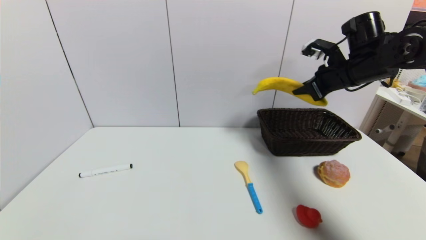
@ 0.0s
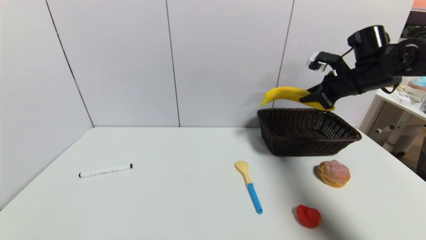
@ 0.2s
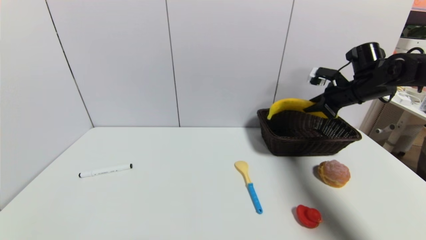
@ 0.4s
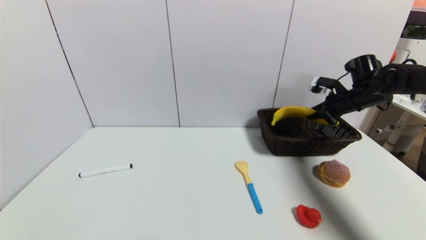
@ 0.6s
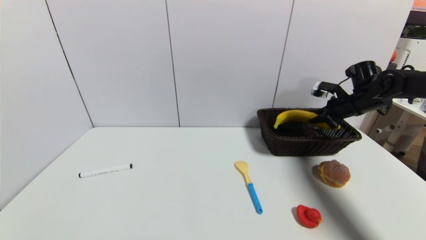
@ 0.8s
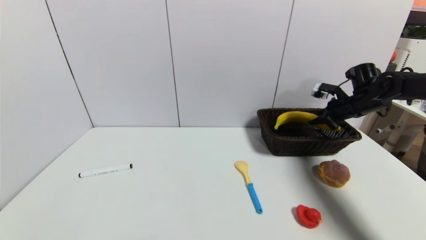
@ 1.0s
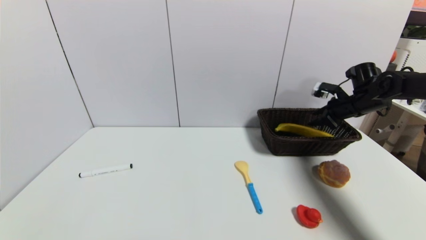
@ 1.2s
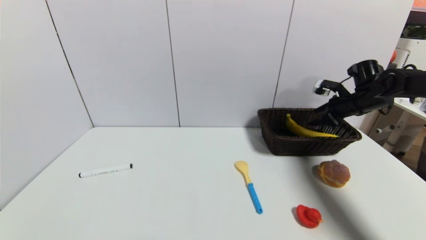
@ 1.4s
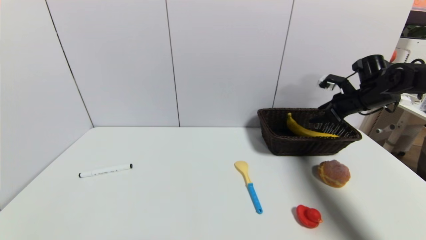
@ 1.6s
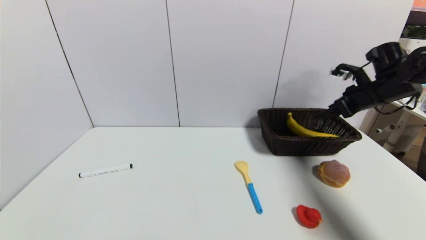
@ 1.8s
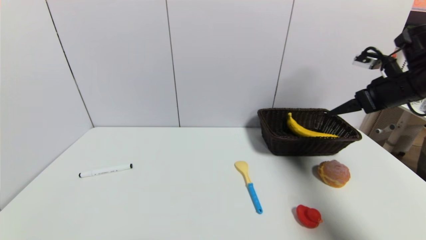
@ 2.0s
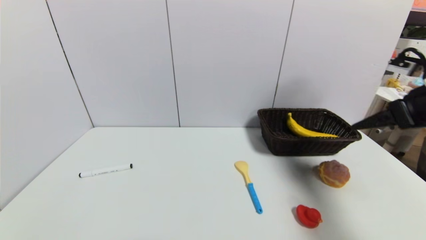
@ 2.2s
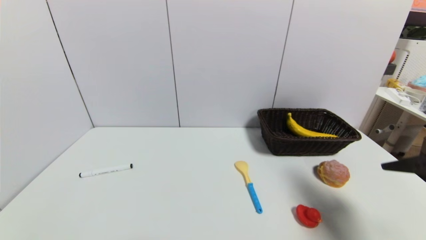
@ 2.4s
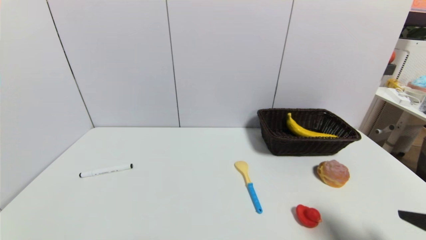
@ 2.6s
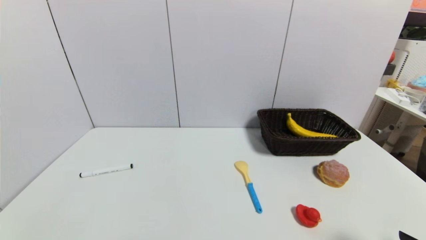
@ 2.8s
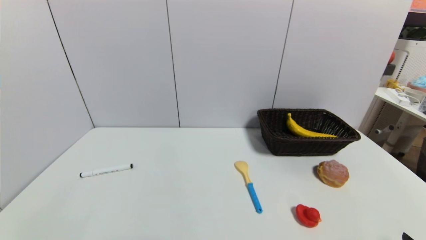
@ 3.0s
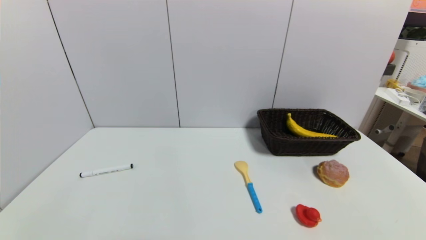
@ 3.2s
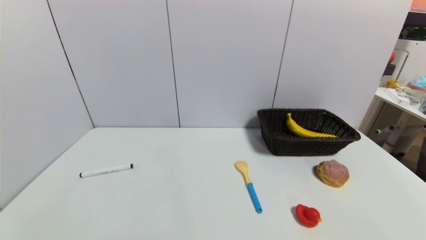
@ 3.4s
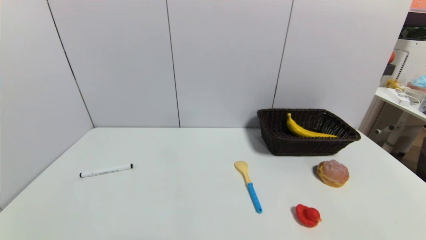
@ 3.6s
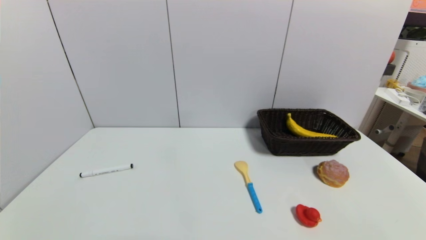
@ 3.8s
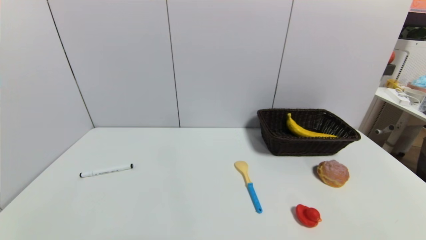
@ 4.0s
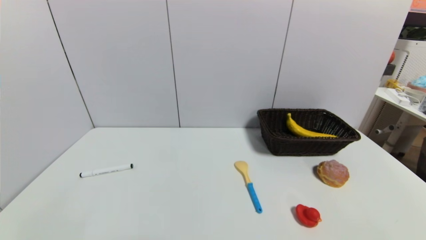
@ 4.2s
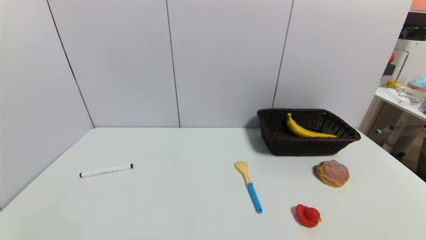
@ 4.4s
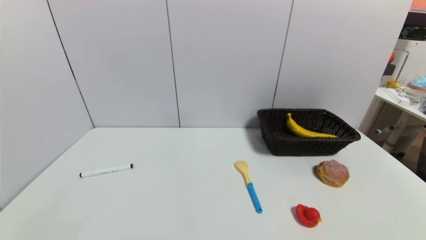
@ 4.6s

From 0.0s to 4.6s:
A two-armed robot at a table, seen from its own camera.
Task of the whole recording: use a gripper to pick the target object and place on the brown basket.
From 0.0s to 1.6s: The right gripper goes roughly 10 cm to the right and downward, and opens its fingers.
From 1.6s to 3.0s: The right gripper moves backward, approximately 40 cm.

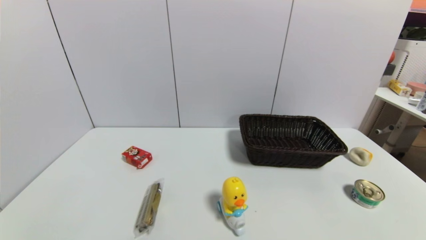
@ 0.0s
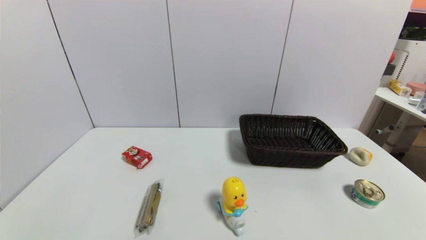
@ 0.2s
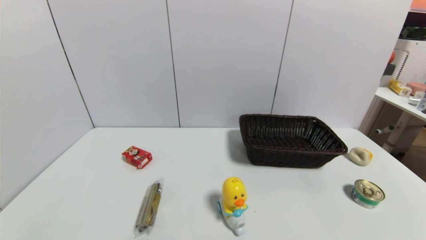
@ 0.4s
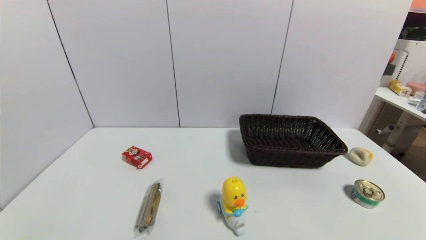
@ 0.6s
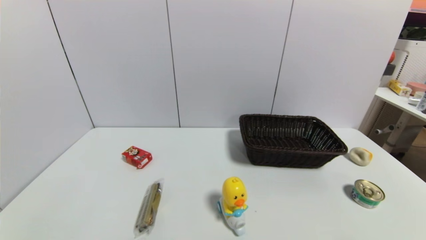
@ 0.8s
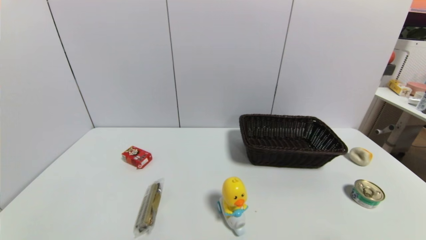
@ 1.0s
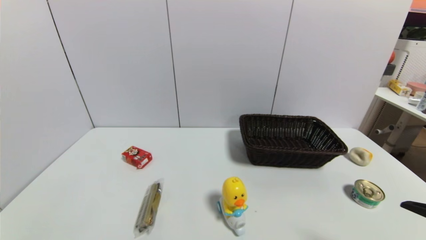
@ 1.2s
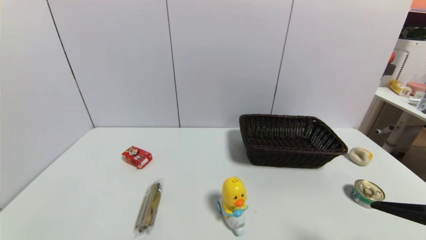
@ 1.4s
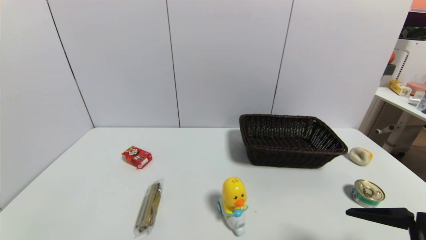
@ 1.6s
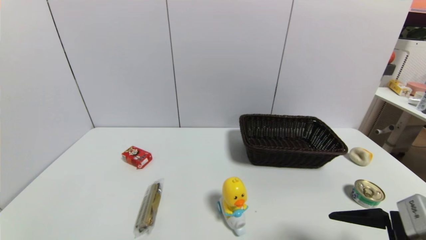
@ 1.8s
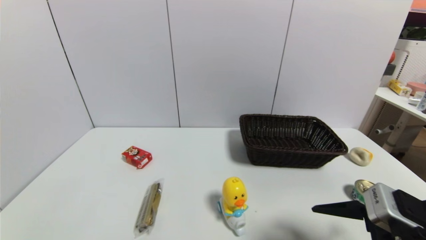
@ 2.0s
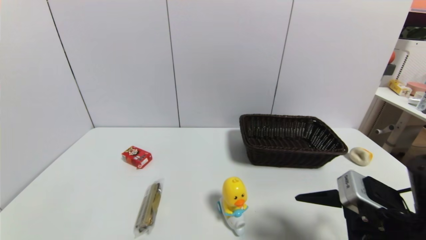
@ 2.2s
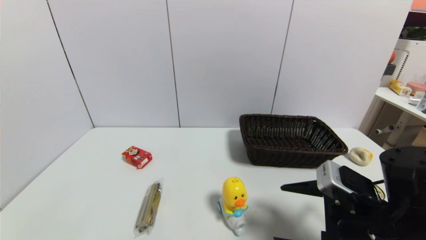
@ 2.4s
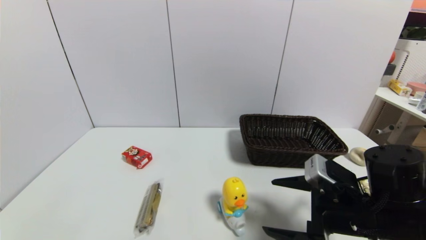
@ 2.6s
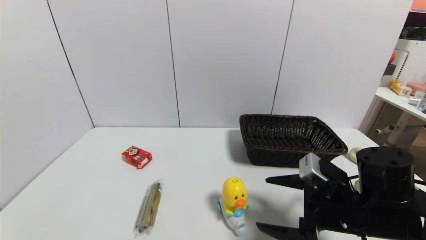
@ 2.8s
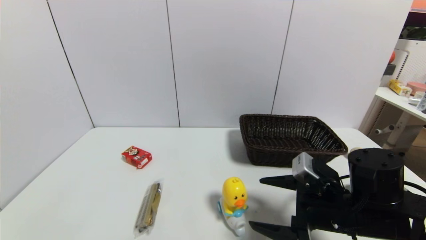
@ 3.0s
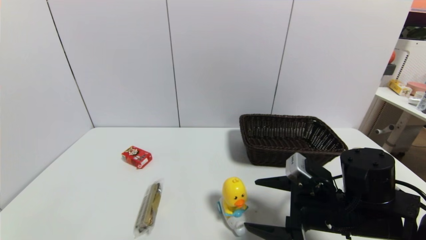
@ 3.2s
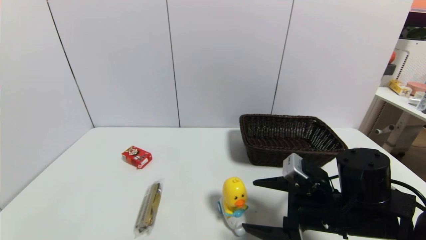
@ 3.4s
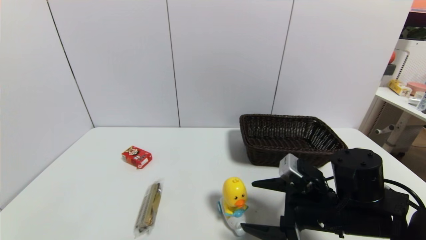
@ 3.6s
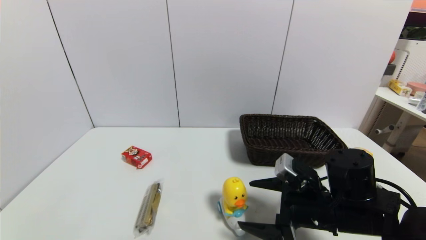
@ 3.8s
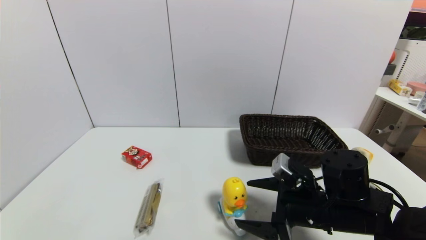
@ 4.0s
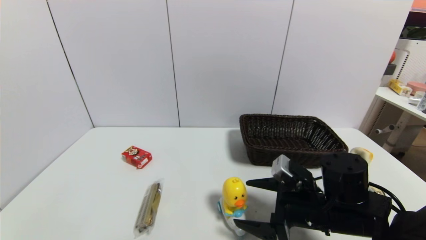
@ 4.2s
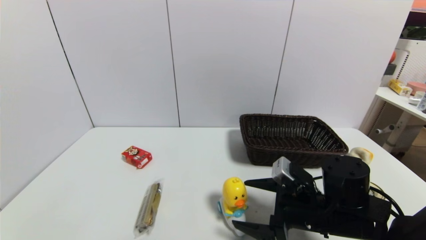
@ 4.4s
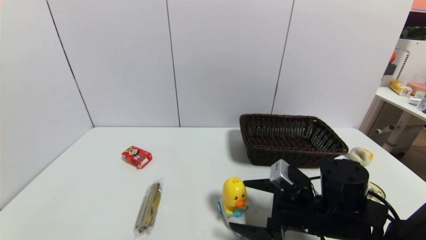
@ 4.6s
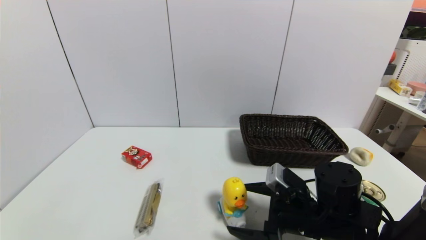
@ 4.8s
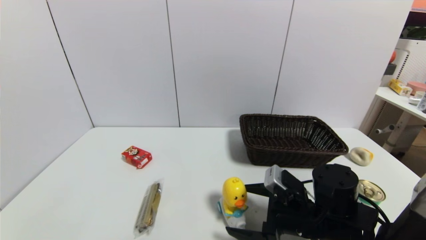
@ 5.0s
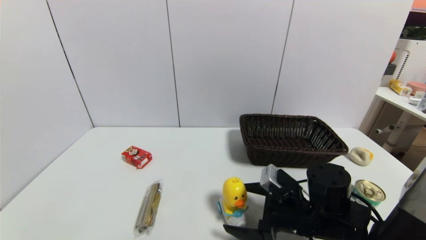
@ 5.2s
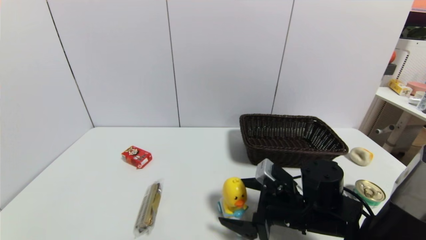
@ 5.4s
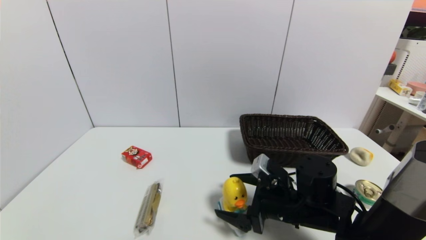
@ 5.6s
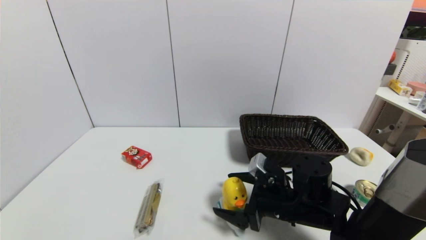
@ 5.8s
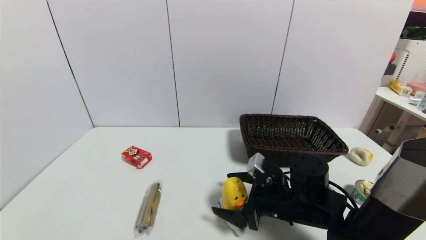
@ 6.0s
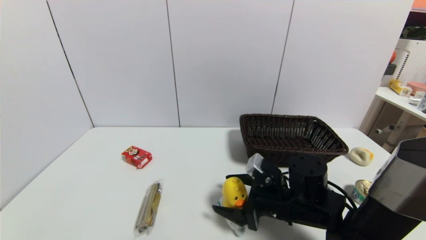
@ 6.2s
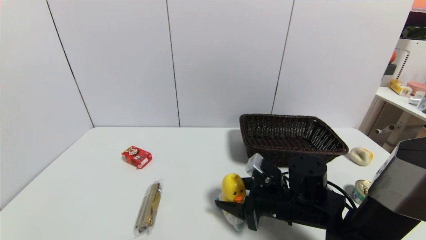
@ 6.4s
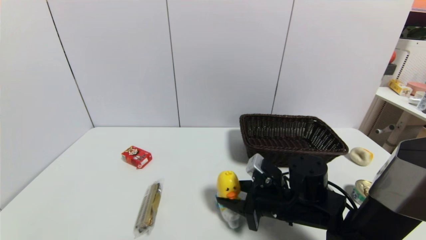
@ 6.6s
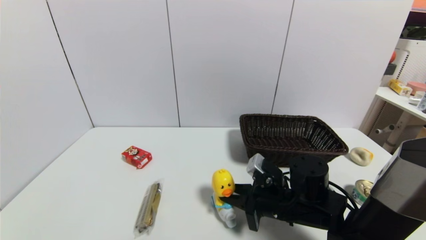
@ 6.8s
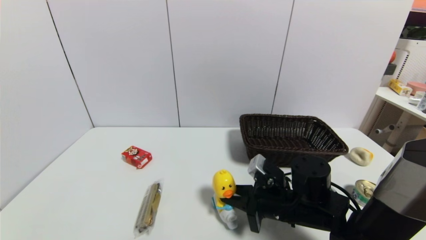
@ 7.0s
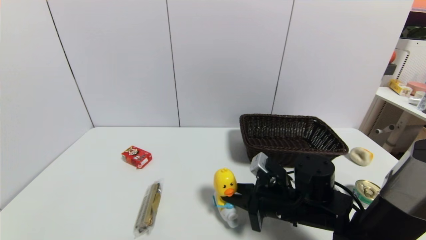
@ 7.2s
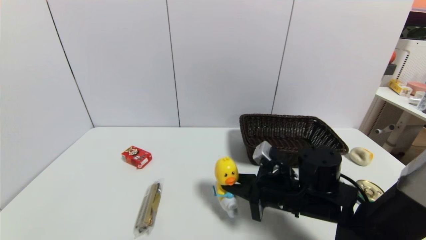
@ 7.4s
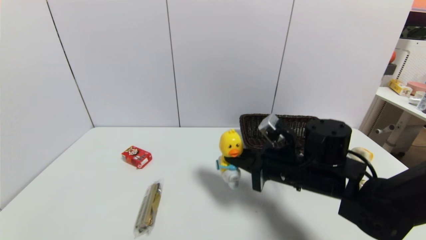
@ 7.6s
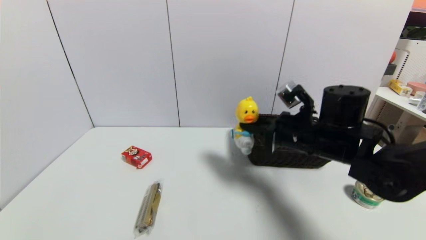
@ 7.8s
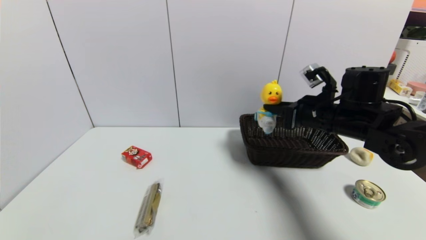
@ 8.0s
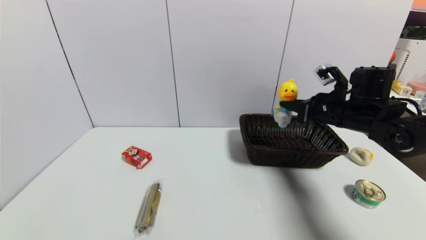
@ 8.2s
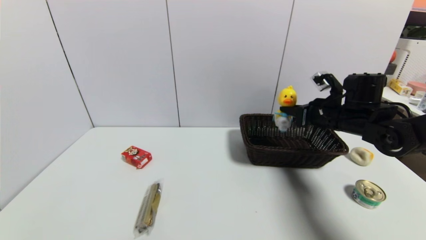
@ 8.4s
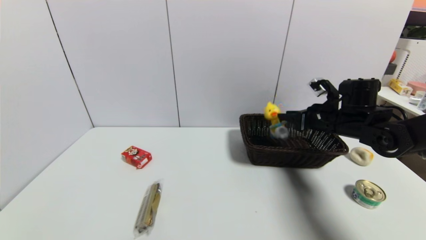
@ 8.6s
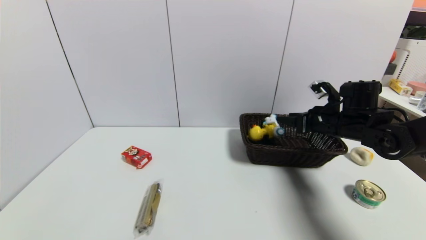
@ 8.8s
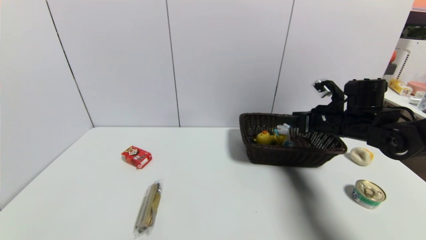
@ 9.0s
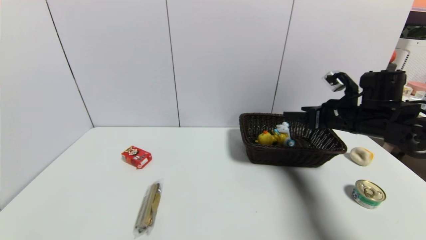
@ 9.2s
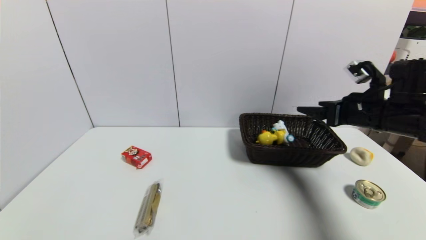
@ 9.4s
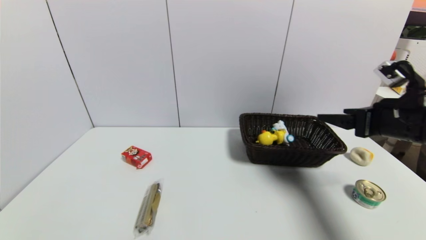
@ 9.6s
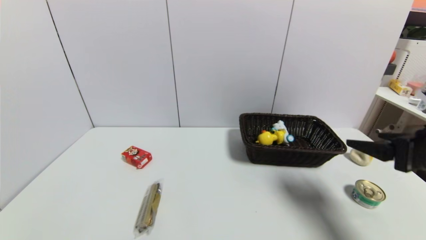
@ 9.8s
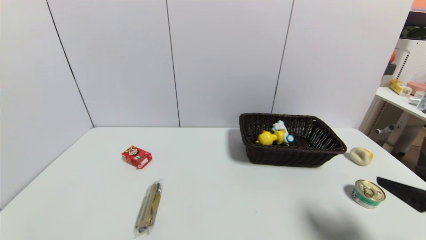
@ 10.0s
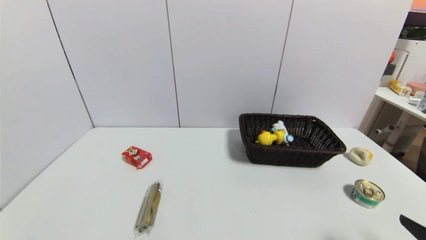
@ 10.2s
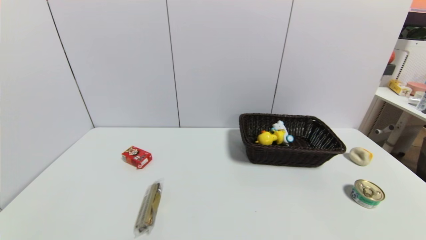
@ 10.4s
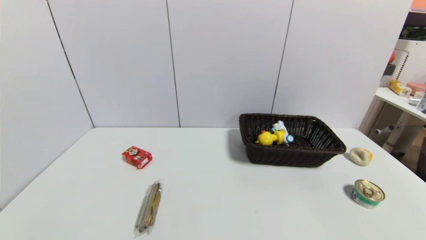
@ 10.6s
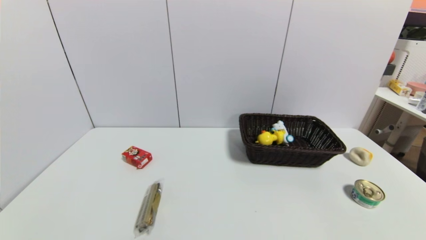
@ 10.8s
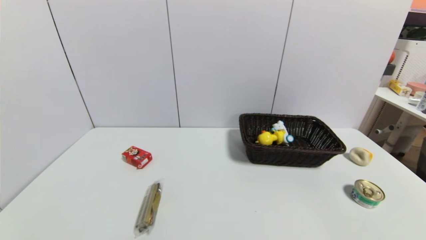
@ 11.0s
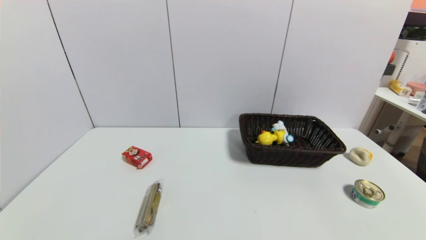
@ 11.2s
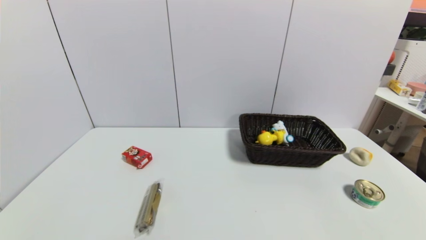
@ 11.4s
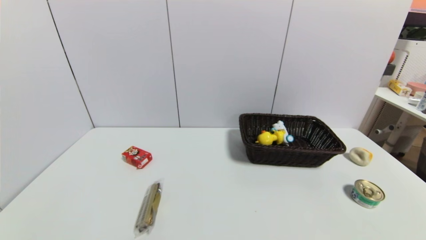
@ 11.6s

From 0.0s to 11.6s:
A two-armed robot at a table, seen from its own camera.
Task of the whole recording: use a gripper to pick the target object and place on the brown basket.
Step, from 0.0s to 7.0s: Grasp the duck toy with the right gripper.
Step, from 7.2s to 9.4s: Place the duck toy into the basket with the right gripper.
From 0.0s to 1.4s: The right gripper heads upward and forward, covering roughly 15 cm.
From 1.4s to 2.8s: The right gripper heads forward, to the left and downward, covering roughly 15 cm.
From 2.8s to 4.4s: The right gripper shifts by some 5 cm.
From 4.4s to 5.8s: The grippers make only small movements.
From 5.8s to 7.2s: The right gripper closes.
From 7.2s to 8.8s: The right gripper moves to the right, forward and upward, about 20 cm, and opens up.
From 8.8s to 10.2s: The right gripper is displaced backward by roughly 30 cm, and opens its fingers.
